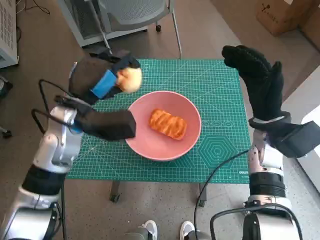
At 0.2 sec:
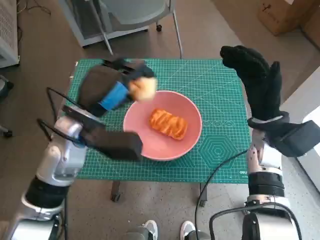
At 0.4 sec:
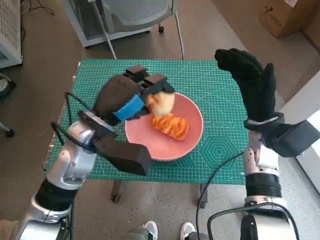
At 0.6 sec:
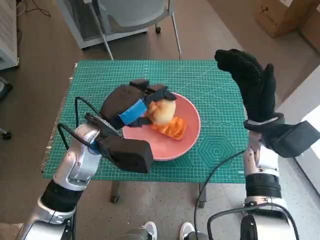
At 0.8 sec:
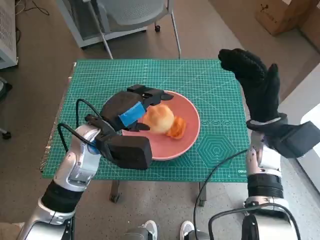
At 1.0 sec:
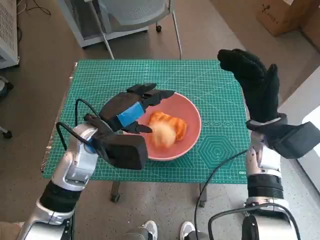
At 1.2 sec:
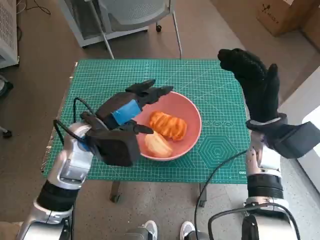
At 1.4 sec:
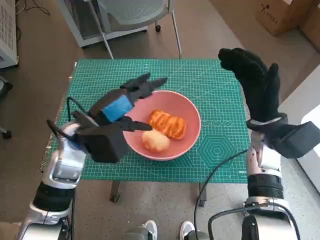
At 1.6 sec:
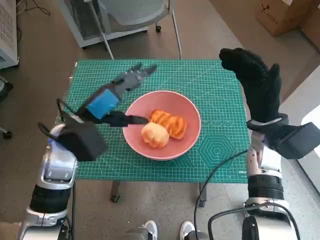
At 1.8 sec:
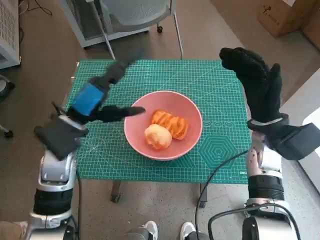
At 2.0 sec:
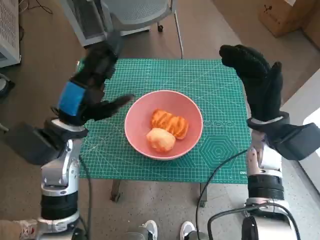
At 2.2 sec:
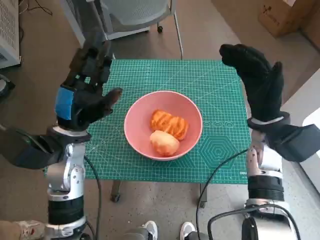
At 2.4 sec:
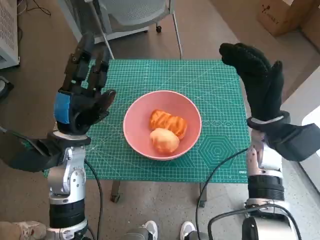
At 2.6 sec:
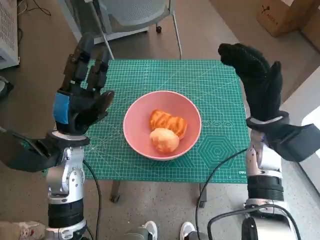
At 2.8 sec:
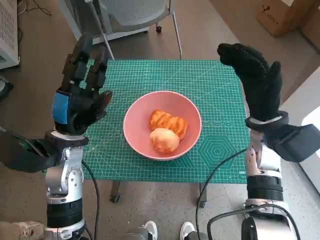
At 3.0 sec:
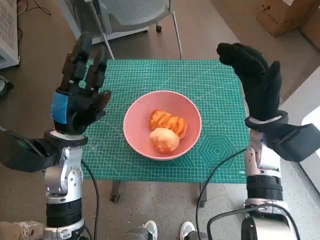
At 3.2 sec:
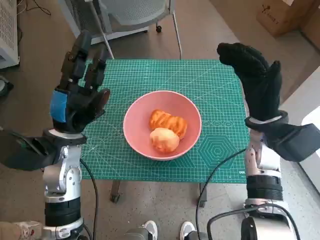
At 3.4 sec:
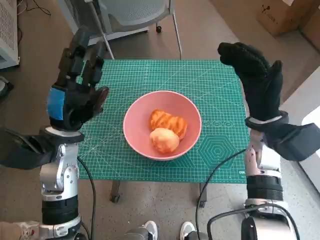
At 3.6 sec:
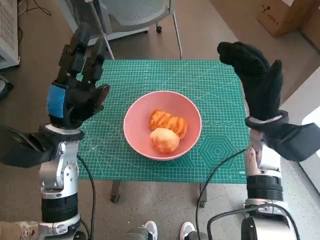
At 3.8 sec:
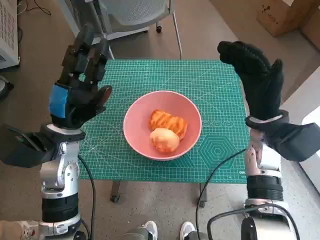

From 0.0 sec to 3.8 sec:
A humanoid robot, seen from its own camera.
Step, from 0.0 sec to 1.2 sec: Place the round bread in pink bowl with left hand.
From 1.2 sec to 2.6 sec: The left hand shifts by about 5 cm.
From 2.6 sec to 3.8 sec: The hands move only a little.
